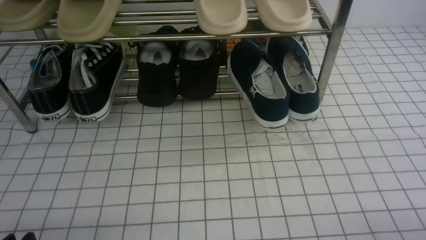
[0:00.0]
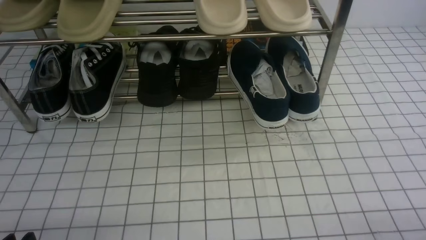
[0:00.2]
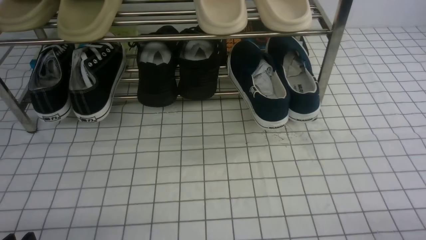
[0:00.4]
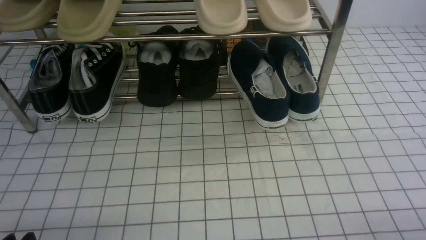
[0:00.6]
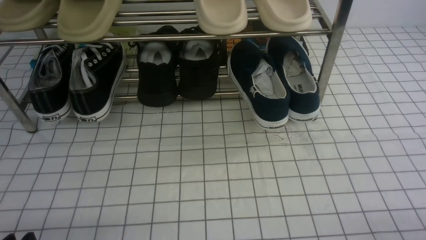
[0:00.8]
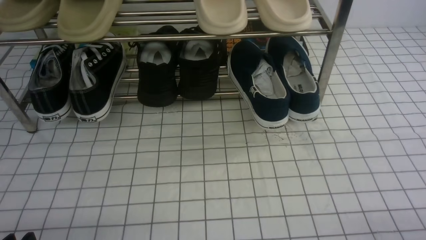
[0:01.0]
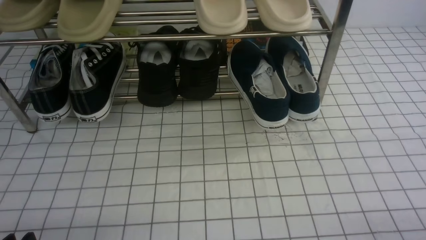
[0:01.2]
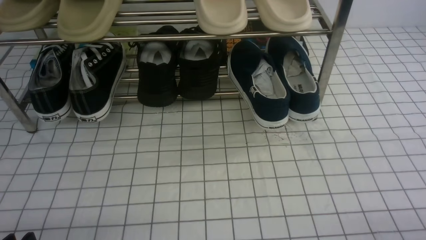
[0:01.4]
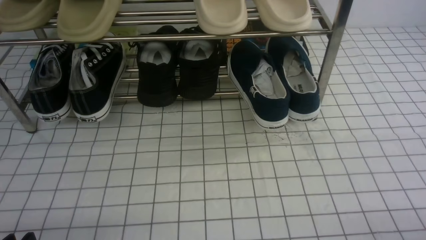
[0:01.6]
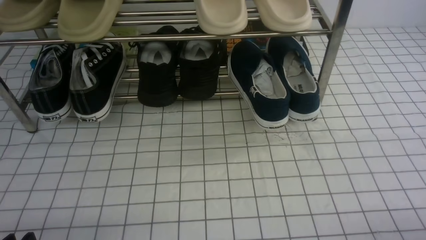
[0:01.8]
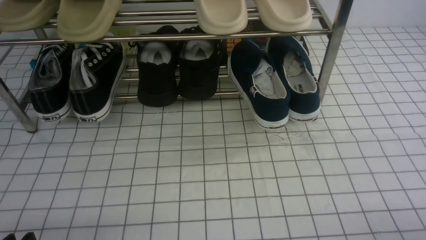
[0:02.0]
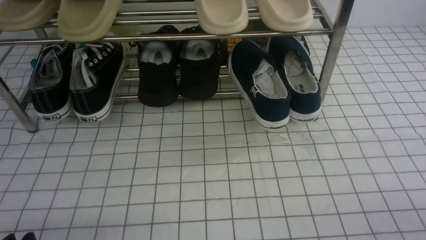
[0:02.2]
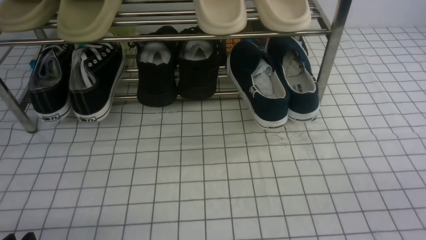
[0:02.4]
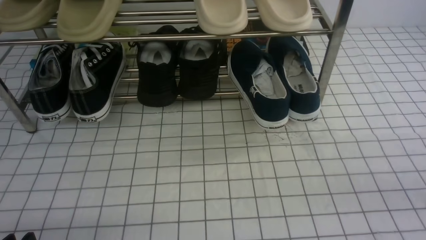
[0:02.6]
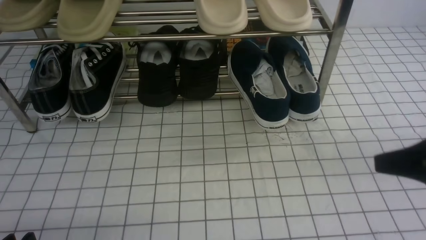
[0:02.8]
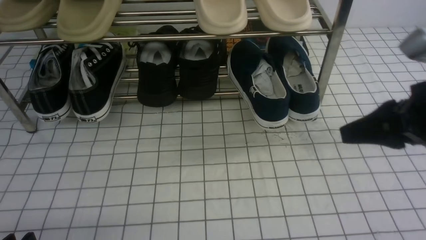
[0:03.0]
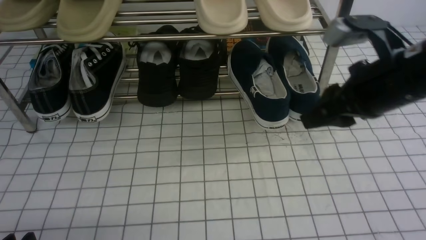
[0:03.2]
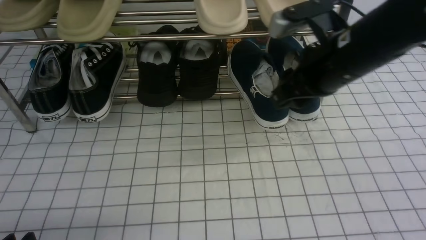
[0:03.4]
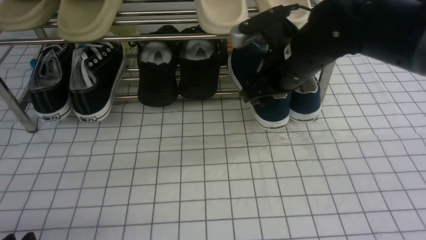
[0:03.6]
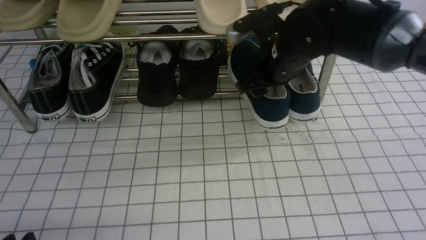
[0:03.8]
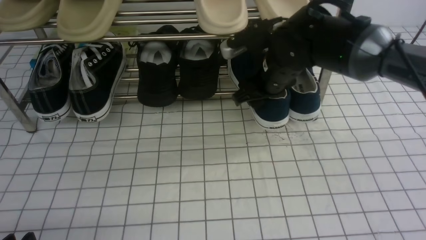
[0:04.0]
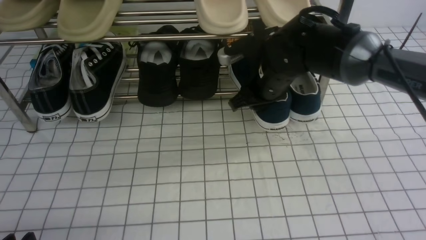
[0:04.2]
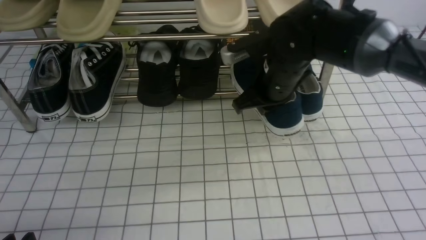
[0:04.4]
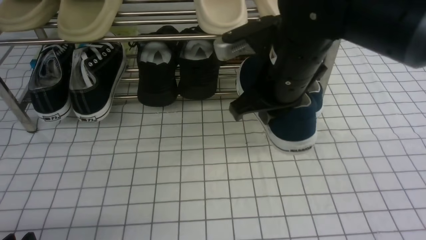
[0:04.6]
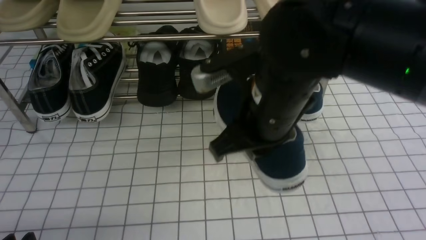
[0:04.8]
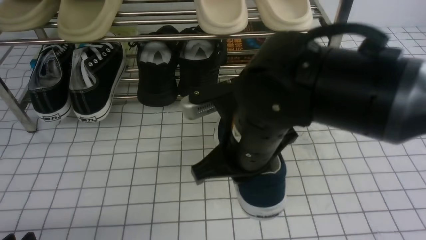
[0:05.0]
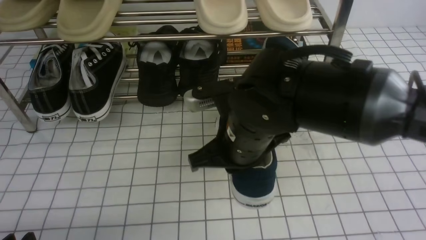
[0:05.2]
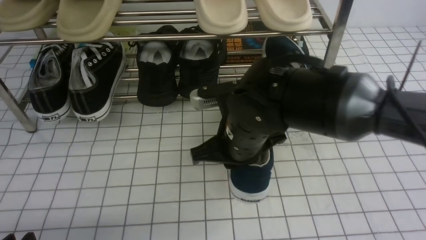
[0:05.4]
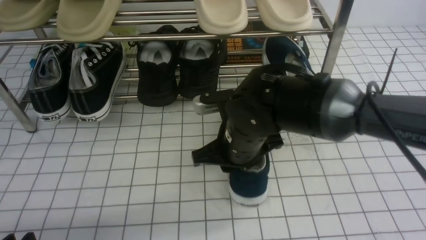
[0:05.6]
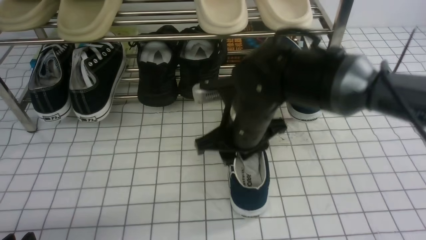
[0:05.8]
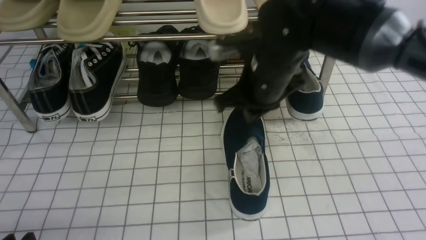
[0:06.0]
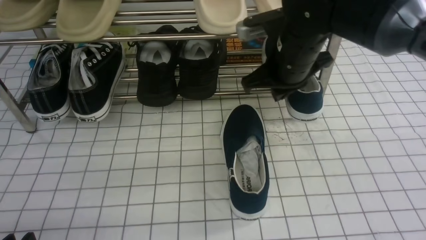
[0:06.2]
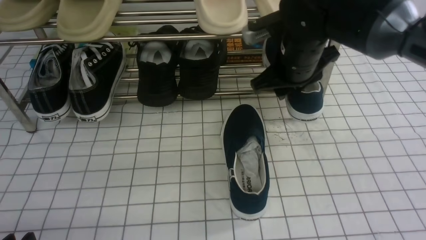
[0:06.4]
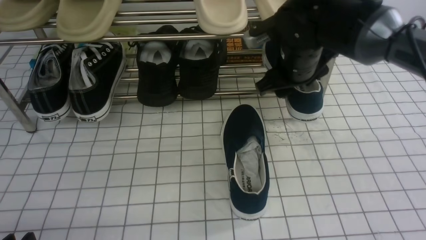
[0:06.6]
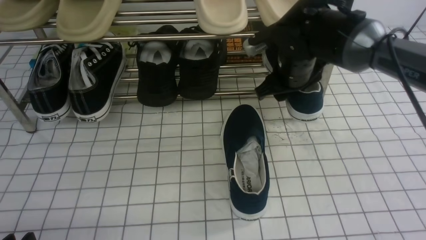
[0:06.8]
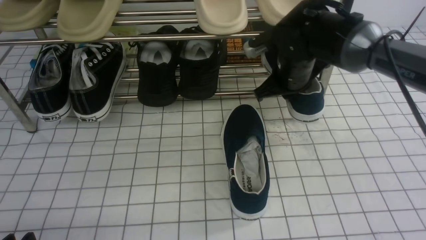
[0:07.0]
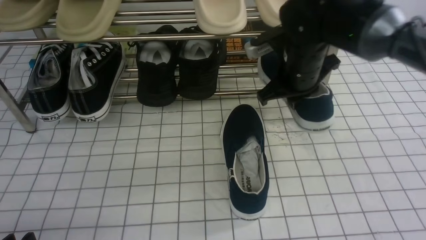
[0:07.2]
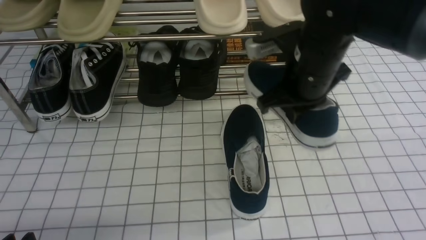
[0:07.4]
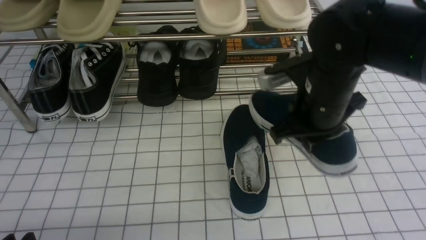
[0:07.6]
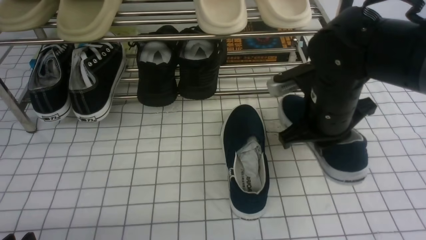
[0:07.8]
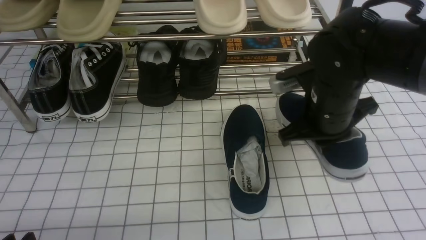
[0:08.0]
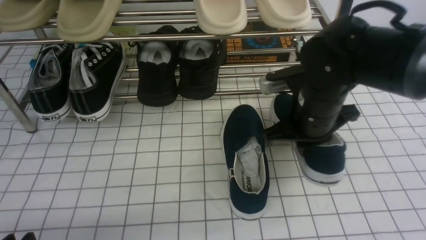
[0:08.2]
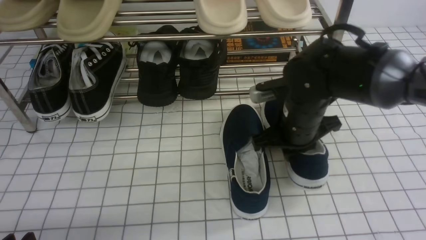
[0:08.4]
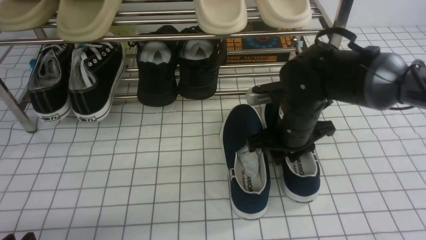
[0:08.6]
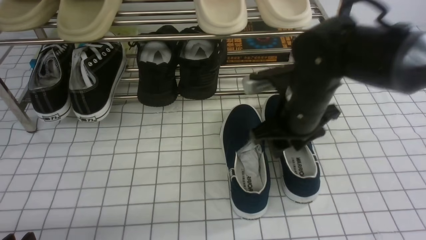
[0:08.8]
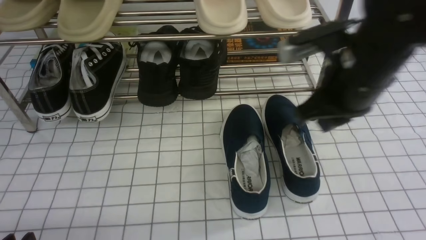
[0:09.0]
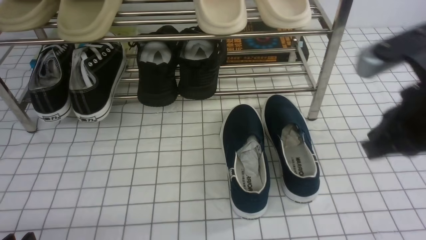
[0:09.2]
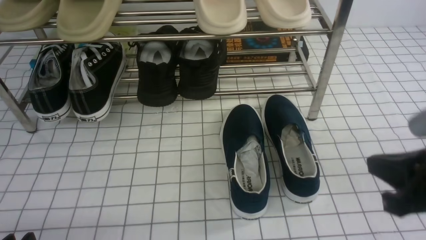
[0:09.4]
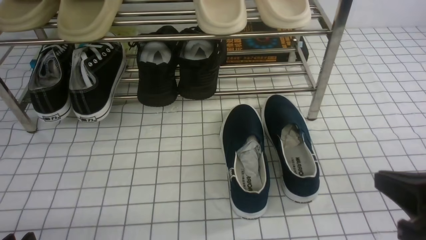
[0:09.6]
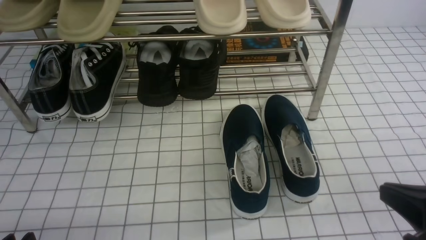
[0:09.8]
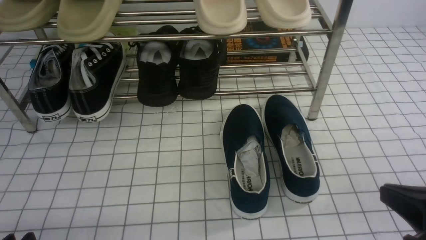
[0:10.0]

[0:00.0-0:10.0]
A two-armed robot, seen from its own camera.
Step, 0:00.0 to 0:04.0: use the right arm to clamp a shoe on the right side of the shoe rack.
Step, 0:04.2 to 0:05.8: use the right arm to take out the clamped shoe from the shoe rack and put it down.
Step, 0:06.0 to 0:07.0: use the right arm to clamp a shoe on the right side of the shoe rack.
Step, 0:07.2 to 0:09.0: use the right arm to take out the clamped shoe from the shoe rack and put it down.
0:00.0 to 0:01.4: The two grippers keep their place.
0:01.4 to 0:02.8: The right gripper shifts some 20 cm upward and forward.
0:02.8 to 0:04.2: The right gripper moves forward and to the left, approximately 30 cm, and opens, then closes once more.
0:04.2 to 0:05.8: The right gripper moves backward, approximately 5 cm.
0:05.8 to 0:07.2: The right gripper moves to the right and forward, about 10 cm, and opens and closes again.
0:07.2 to 0:08.6: The right gripper moves downward, some 5 cm, and opens its fingers.
0:08.6 to 0:10.0: The right gripper travels backward and to the right by approximately 25 cm, and closes its fingers.

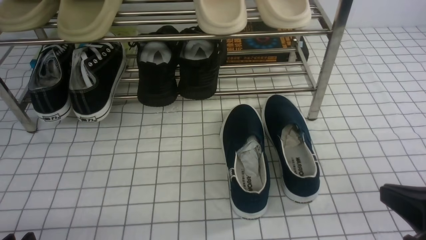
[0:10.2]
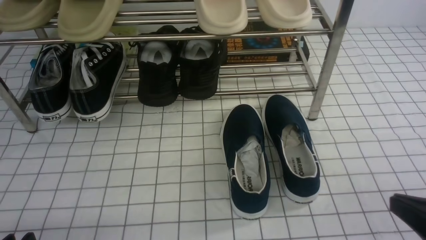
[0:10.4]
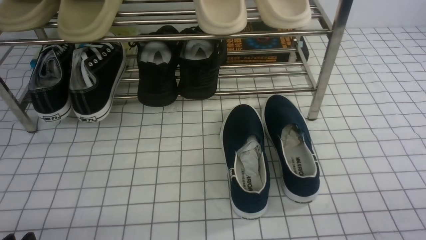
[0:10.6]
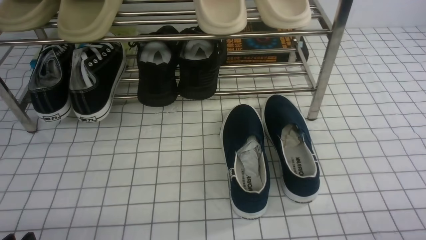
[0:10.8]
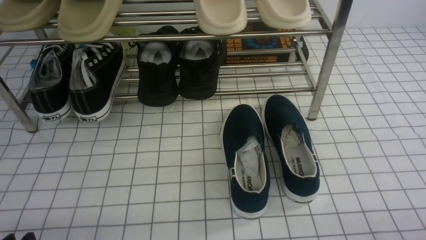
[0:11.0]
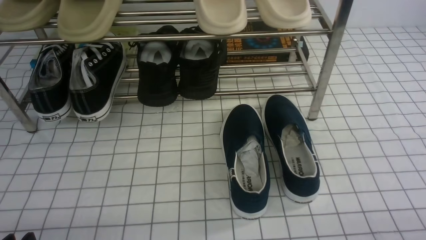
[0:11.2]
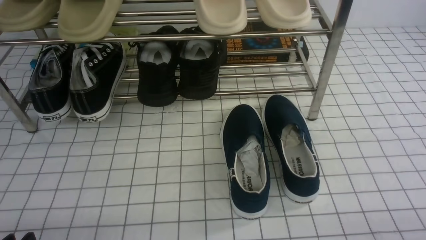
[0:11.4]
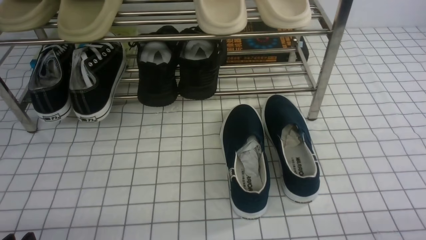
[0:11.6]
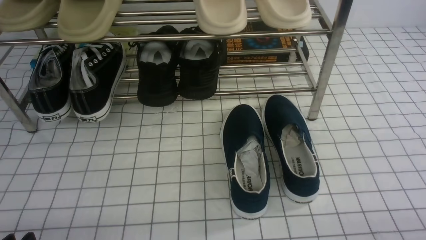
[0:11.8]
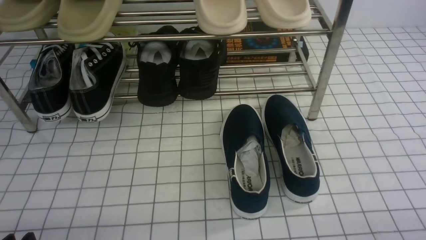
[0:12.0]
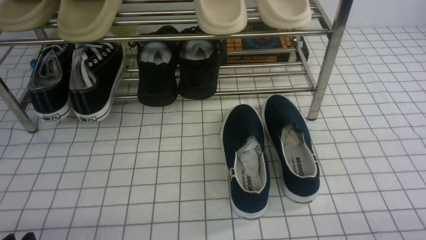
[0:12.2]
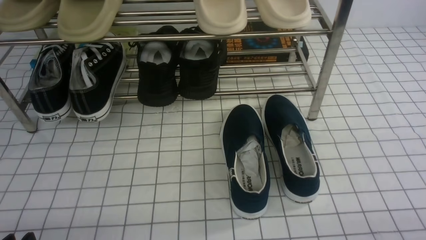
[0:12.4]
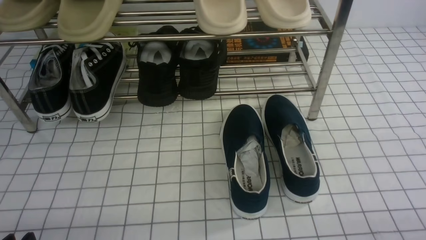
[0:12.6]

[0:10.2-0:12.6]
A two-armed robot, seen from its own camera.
0:10.2 to 0:11.4: The right gripper travels downward and to the right by approximately 10 cm.
0:11.4 to 0:12.6: Neither gripper changes place.

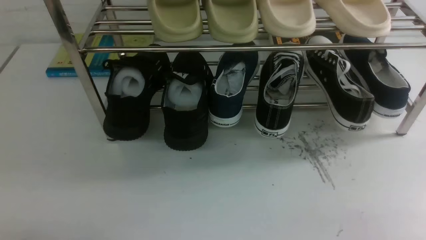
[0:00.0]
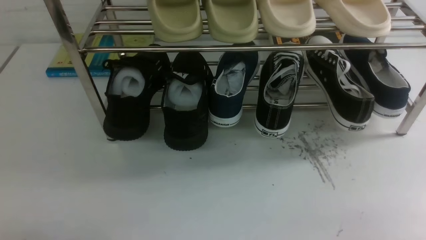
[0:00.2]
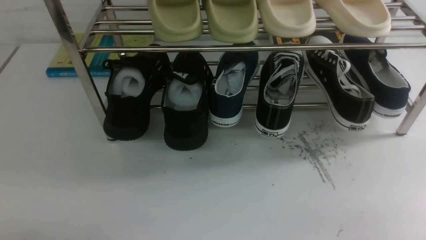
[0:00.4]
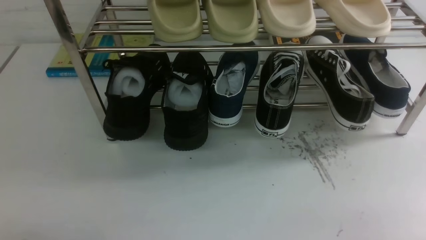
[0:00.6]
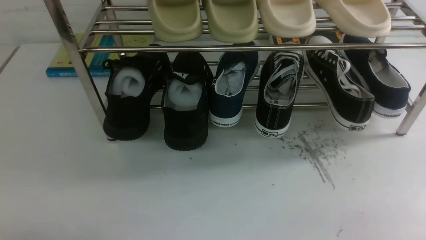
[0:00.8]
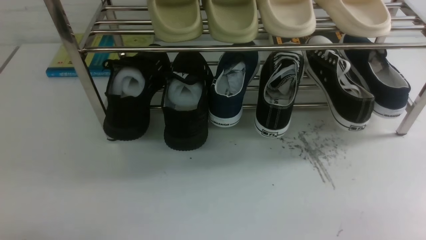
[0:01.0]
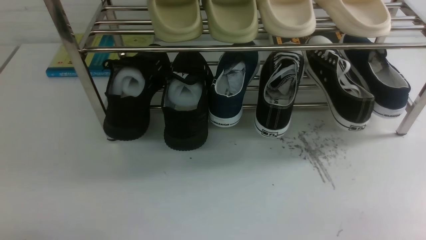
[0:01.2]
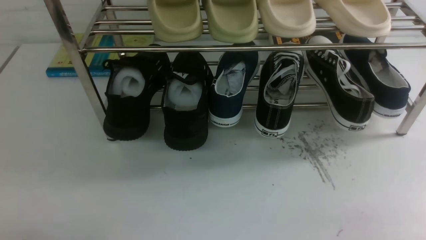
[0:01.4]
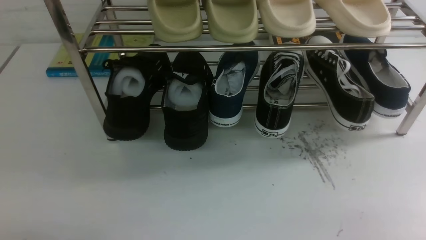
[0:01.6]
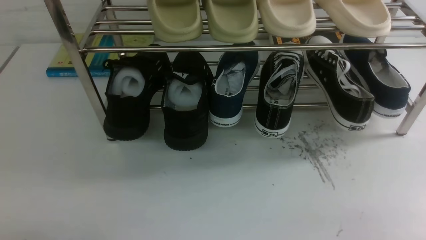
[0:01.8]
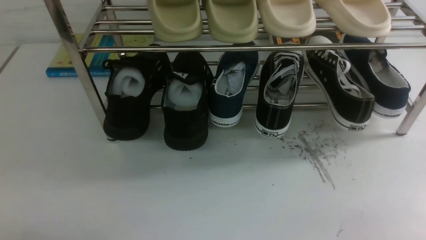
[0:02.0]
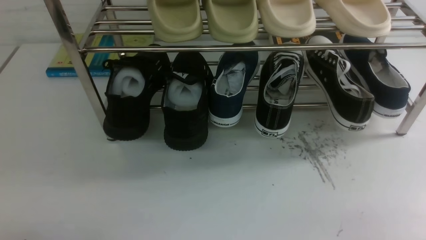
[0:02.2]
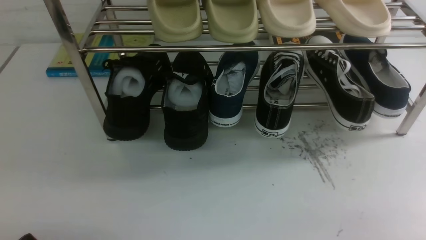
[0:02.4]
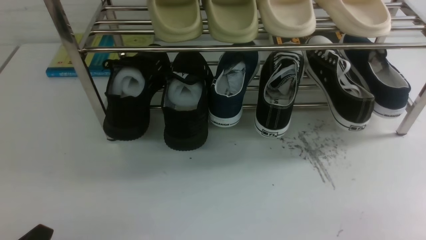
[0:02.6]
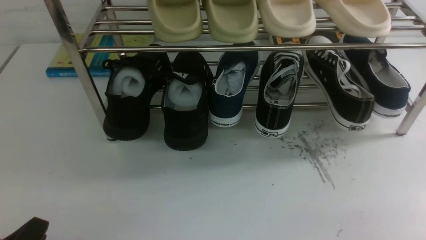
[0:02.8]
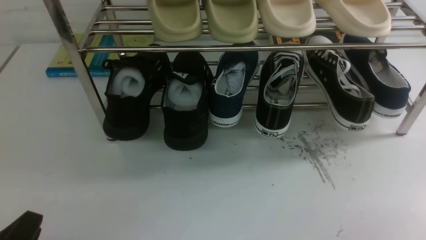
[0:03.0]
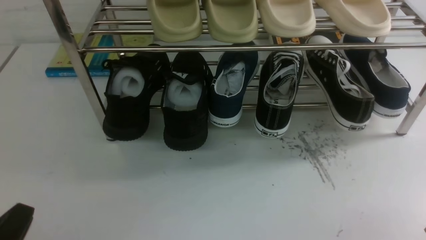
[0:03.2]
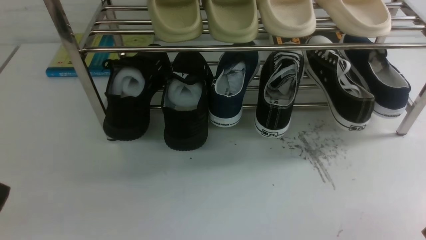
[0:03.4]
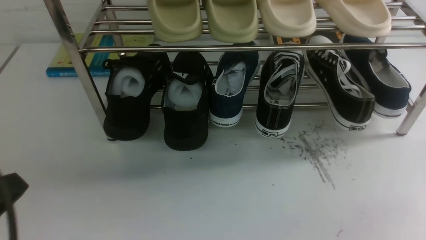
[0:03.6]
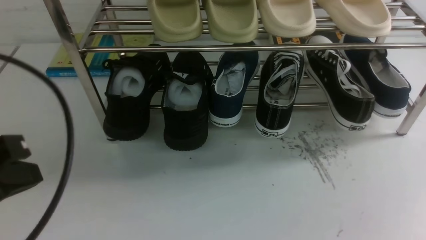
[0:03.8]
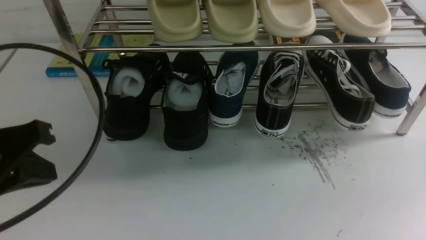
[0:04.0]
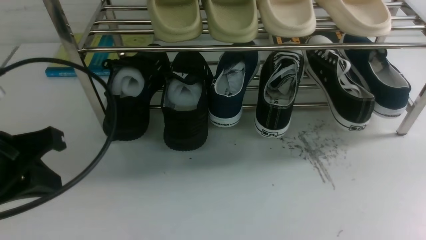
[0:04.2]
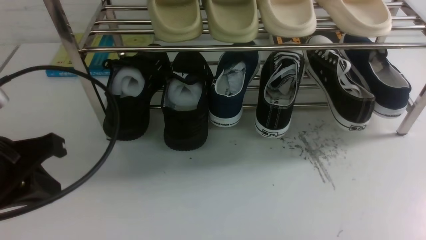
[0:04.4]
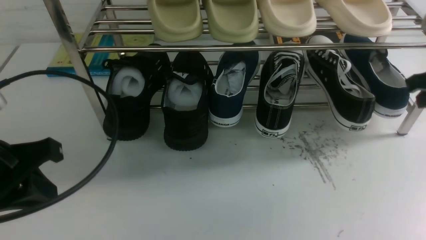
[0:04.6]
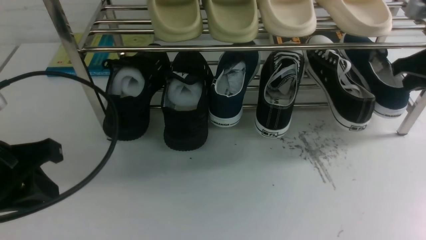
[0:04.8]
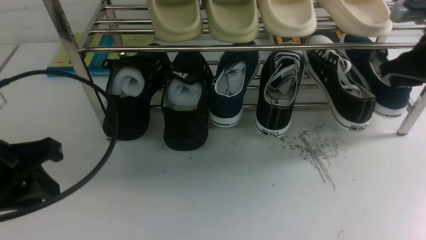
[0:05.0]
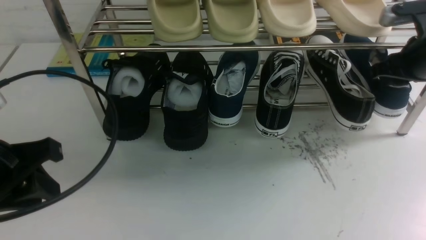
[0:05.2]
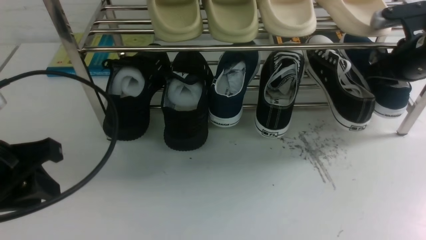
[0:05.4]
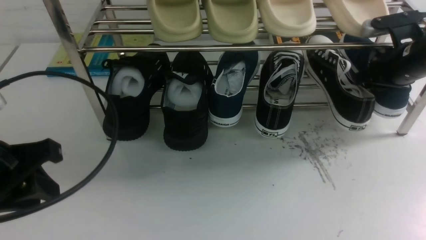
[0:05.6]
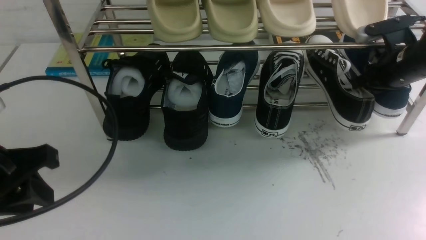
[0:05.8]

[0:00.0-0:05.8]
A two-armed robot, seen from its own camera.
0:00.0 to 0:01.4: Both grippers stay about where they are.
0:02.8 to 0:04.4: The left gripper is displaced upward and forward by roughly 20 cm, and closes up.
0:04.4 to 0:05.8: The left gripper opens its fingers. The right gripper shifts about 20 cm forward and downward, and opens up.
